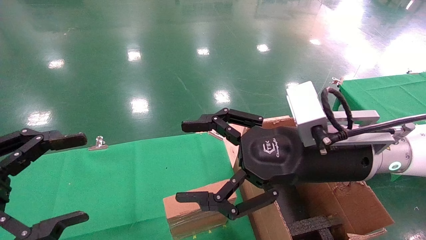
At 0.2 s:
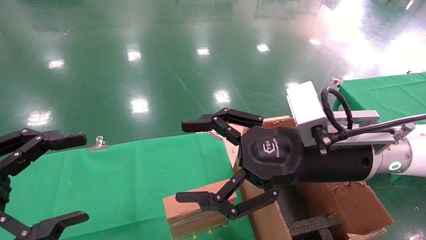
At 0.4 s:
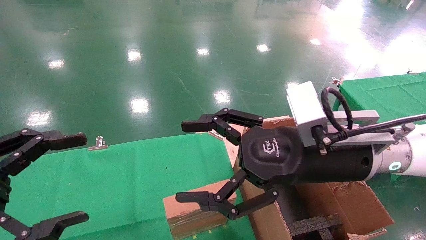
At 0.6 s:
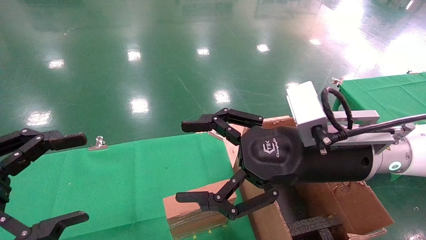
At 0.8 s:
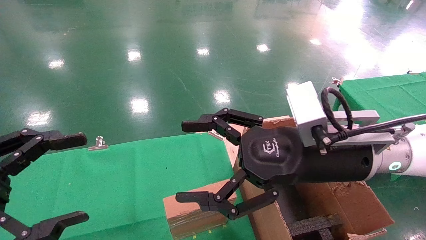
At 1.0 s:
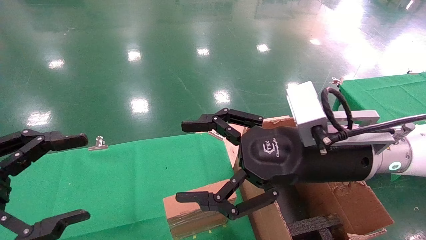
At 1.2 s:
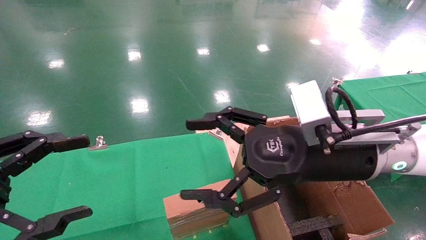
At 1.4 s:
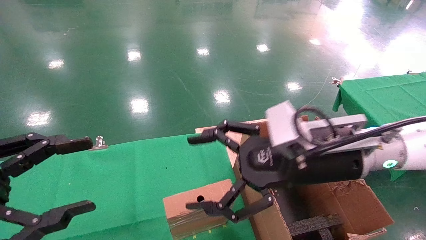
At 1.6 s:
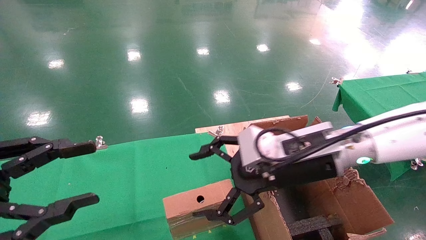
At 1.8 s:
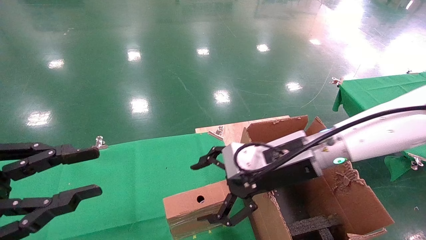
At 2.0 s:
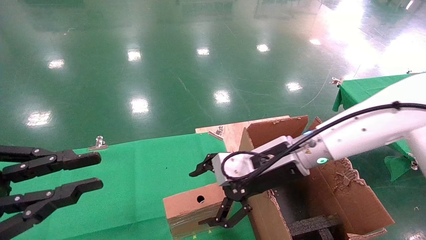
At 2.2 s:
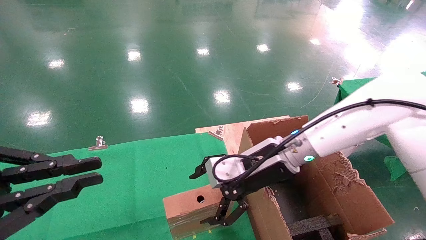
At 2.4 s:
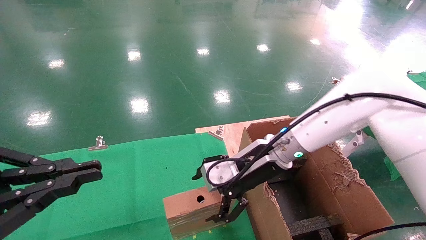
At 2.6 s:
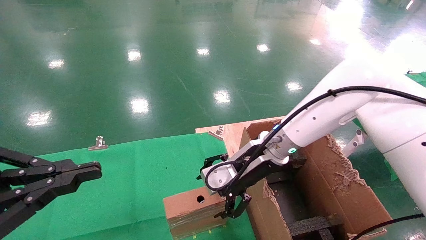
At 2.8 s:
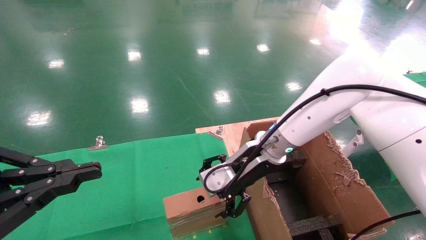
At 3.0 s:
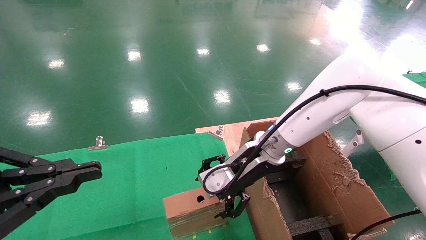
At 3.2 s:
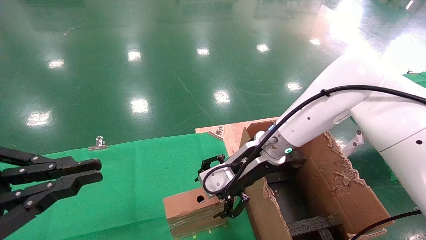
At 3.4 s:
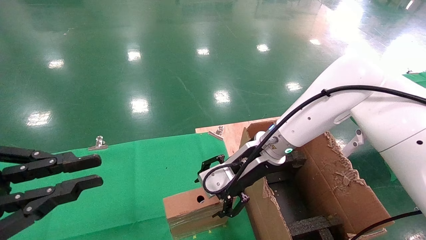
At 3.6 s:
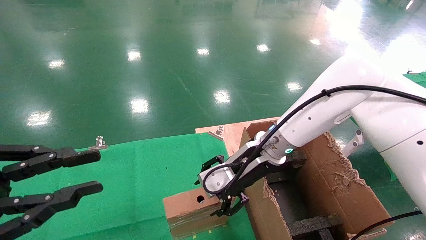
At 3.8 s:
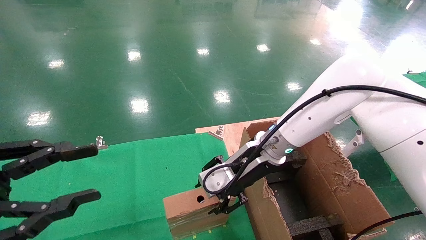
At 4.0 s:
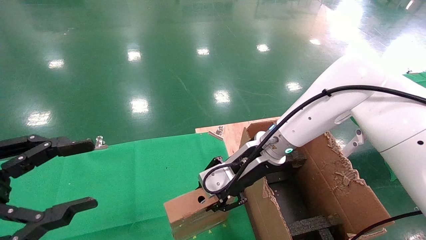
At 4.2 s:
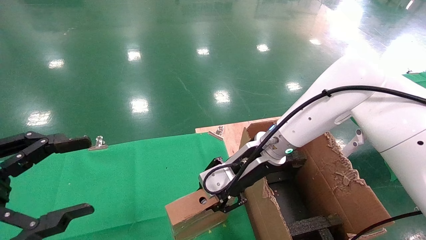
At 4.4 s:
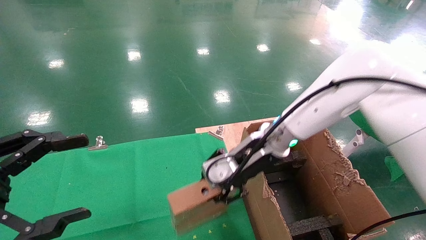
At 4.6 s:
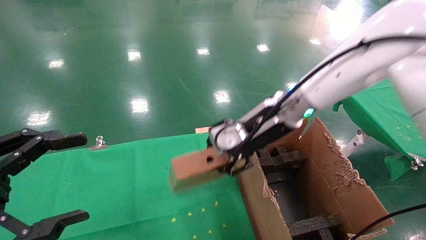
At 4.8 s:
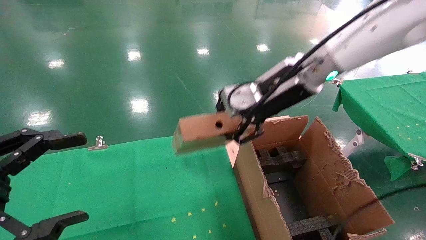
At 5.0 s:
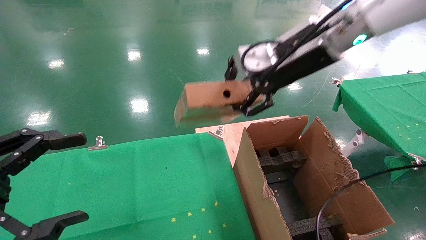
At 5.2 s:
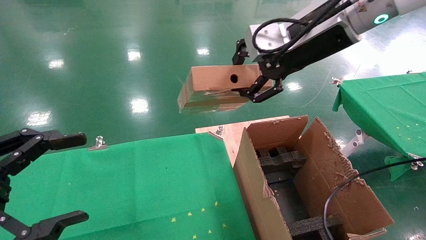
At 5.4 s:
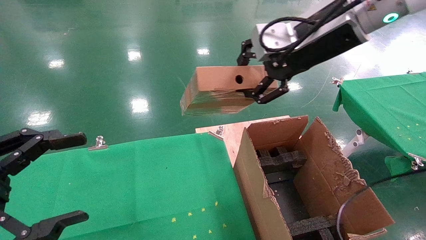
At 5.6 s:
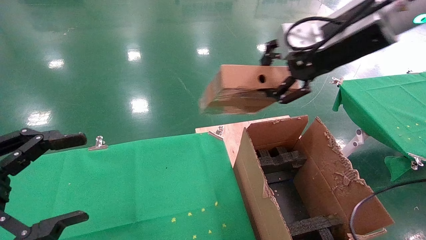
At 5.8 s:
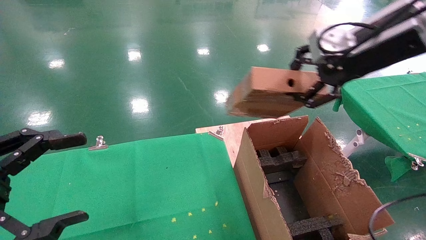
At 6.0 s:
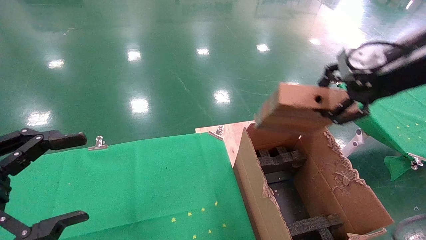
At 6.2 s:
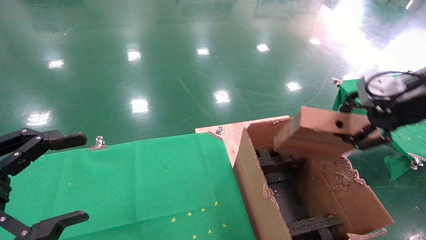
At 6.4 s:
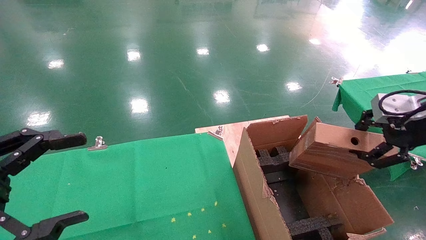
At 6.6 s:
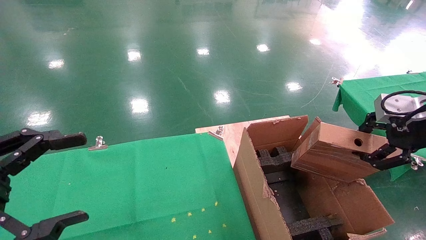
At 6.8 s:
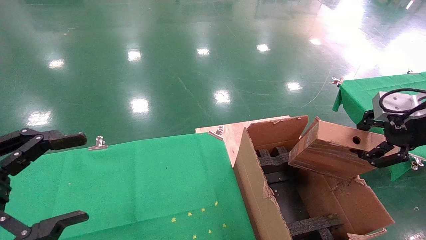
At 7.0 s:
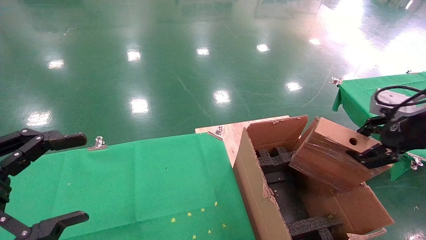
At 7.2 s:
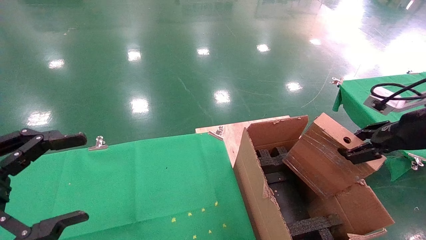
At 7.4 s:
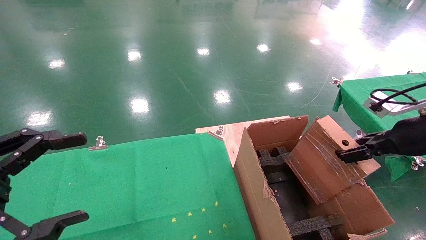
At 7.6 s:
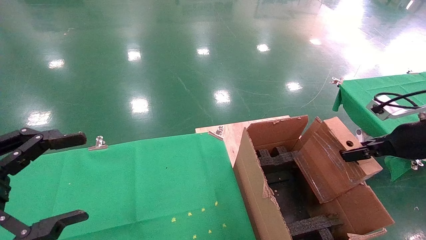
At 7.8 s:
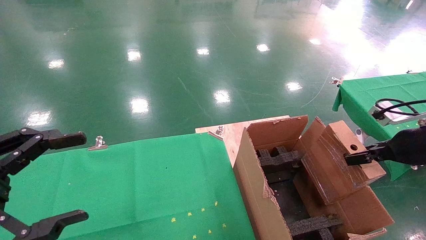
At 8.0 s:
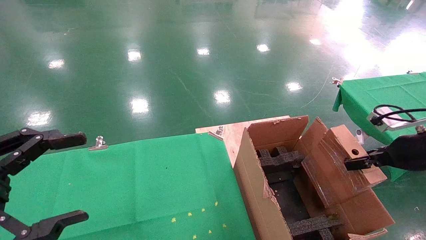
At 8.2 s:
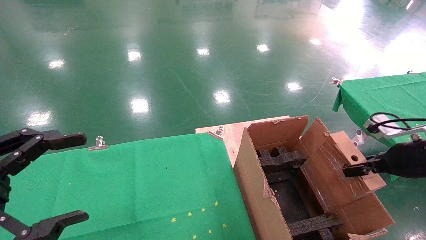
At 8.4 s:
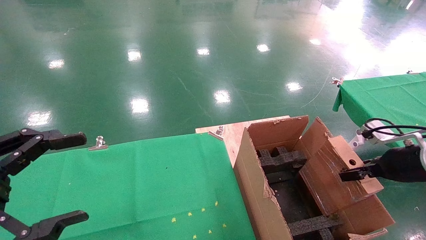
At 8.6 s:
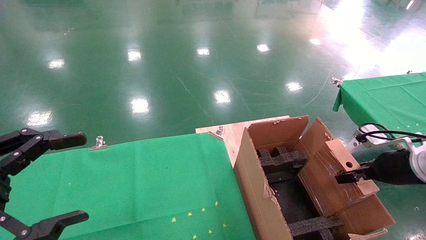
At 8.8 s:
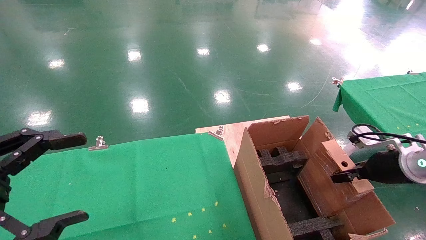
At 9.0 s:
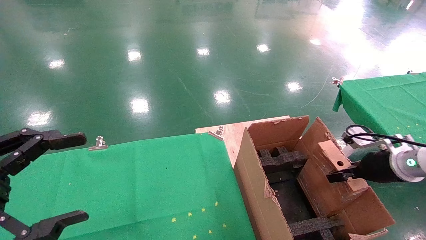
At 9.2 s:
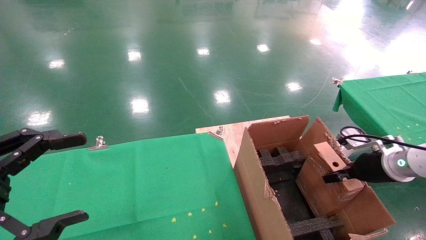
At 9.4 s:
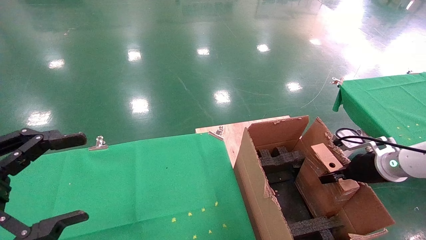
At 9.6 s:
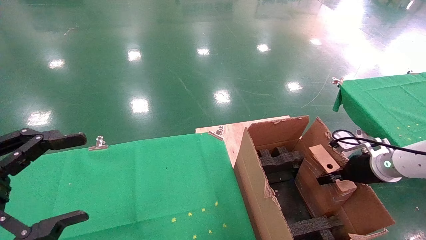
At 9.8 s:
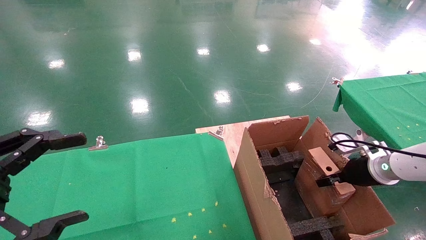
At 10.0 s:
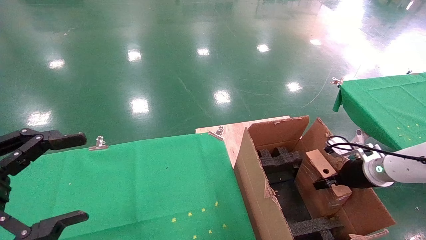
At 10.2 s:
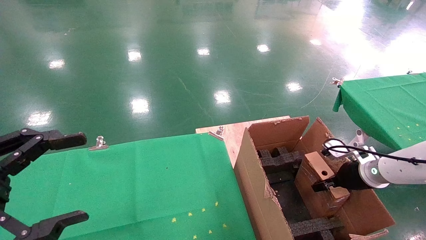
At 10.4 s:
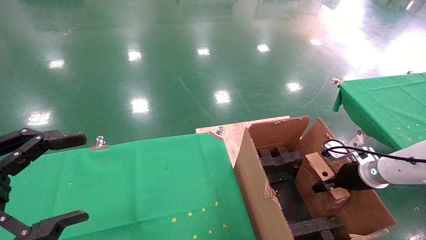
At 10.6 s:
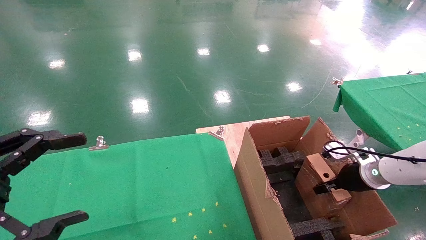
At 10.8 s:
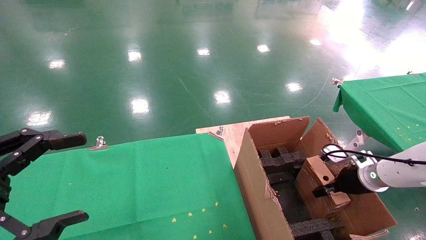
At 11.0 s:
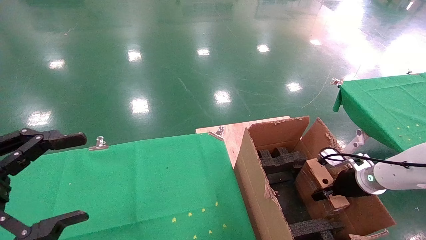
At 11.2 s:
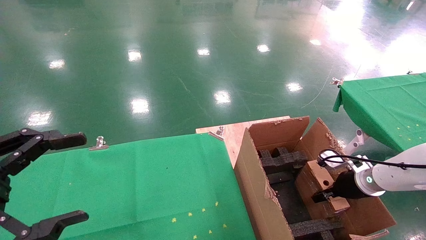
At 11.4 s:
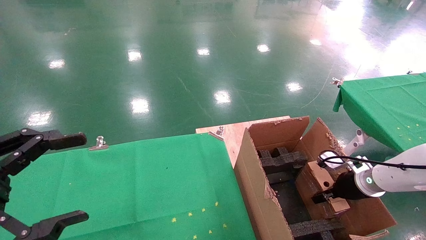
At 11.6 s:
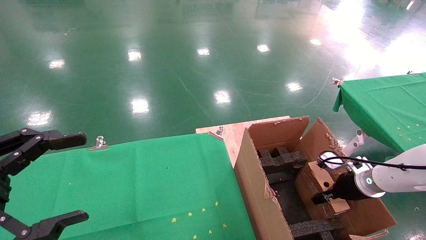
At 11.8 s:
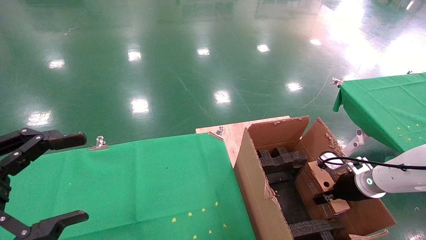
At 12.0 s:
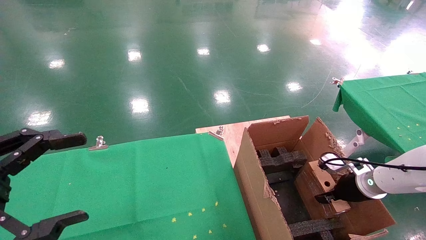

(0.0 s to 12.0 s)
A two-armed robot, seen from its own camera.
Task of the whole recording: using a robotic arm to pick up a cardboard box and palace it the carton.
Step, 1.6 s - 4.2 s: Pick up the mouse and the power cord paper box.
0.0 s - 1.6 s: The right gripper moves approximately 5 cm.
1.6 s - 3.0 s: The right gripper moves forward, some 10 cm; the left gripper closes its fingers.
3.0 s - 4.4 s: The right gripper closes up. The left gripper opens.
4.4 s - 6.0 s: The right gripper moves to the right, upward and backward, some 30 cm.
6.0 s - 7.6 s: The right gripper is displaced downward and to the right by about 15 cm.
7.6 s - 9.0 s: The right gripper shifts roughly 10 cm downward.
9.0 s - 10.4 s: The right gripper moves downward, about 5 cm.
10.4 s - 12.0 s: The grippers make only small movements.

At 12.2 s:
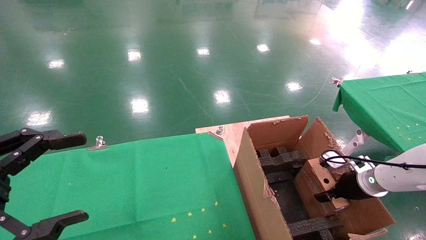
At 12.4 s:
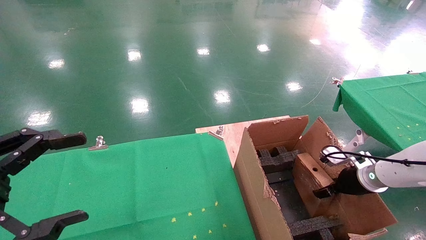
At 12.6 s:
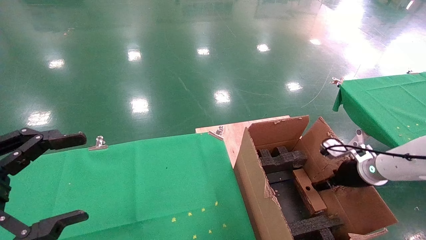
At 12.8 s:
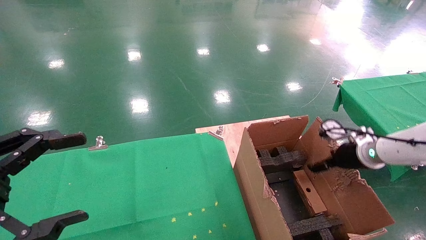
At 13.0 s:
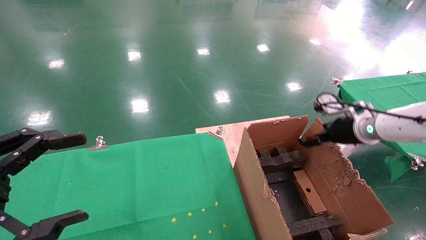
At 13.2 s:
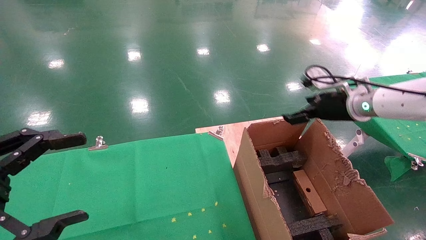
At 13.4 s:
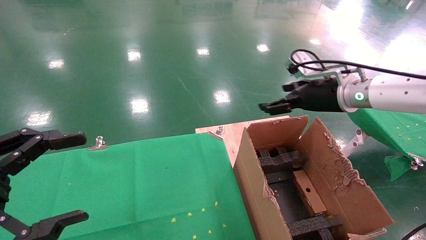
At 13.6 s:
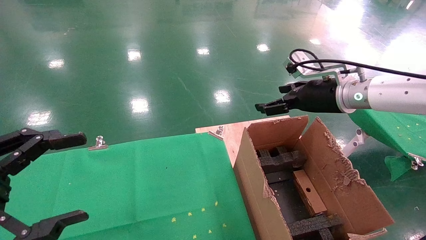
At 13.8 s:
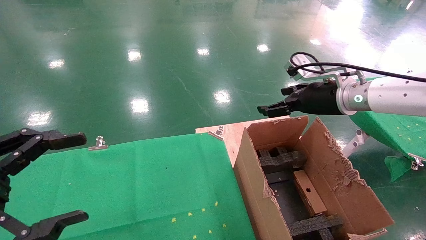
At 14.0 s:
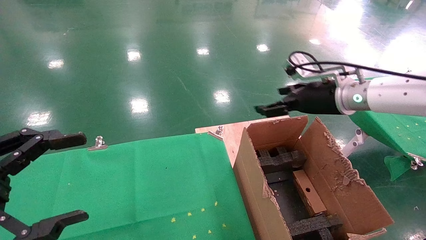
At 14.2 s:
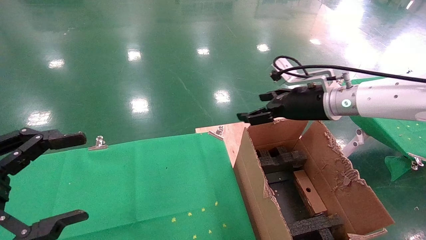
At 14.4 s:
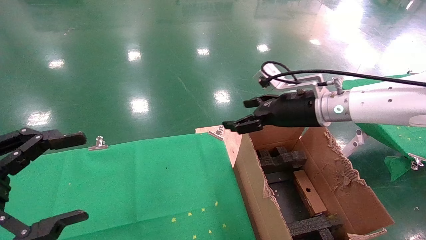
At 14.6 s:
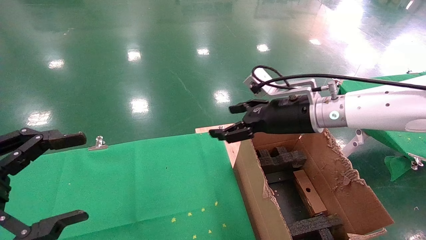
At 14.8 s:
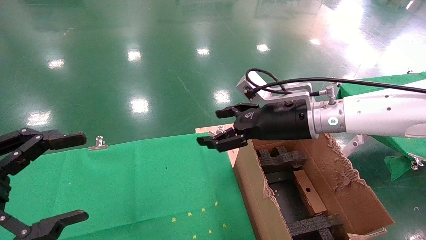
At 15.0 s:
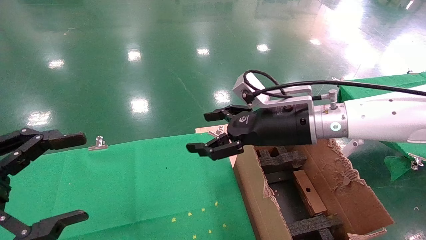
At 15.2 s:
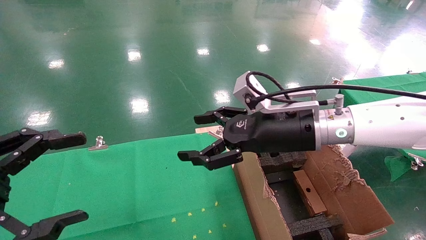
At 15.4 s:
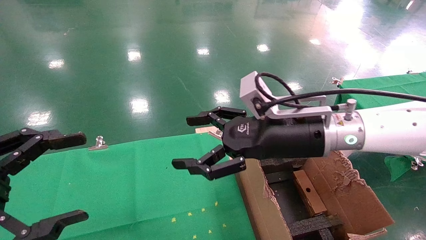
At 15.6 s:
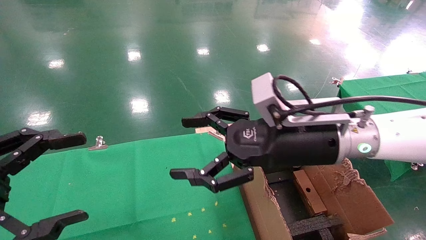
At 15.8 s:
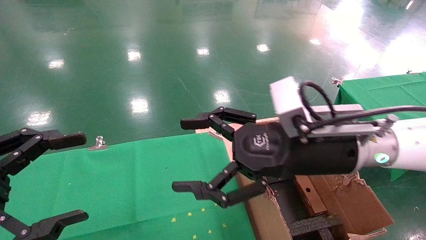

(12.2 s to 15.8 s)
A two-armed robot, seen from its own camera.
Task of the whole recording: using a robotic arm to pick up a cardboard box and palace it the carton.
12.2 s - 14.0 s: The right gripper shifts roughly 25 cm upward and to the left, and opens its fingers.
14.0 s - 15.8 s: The right gripper is displaced backward and to the left by about 15 cm.
